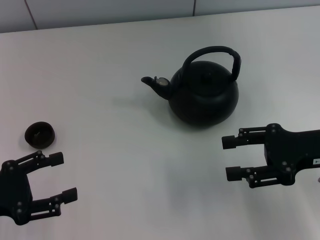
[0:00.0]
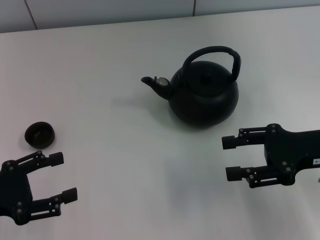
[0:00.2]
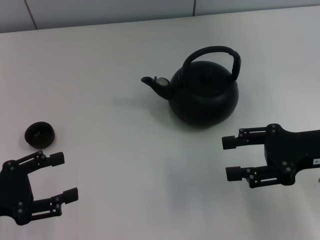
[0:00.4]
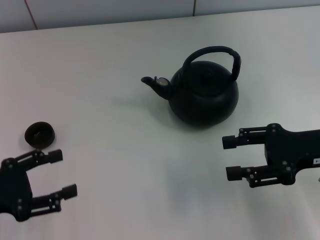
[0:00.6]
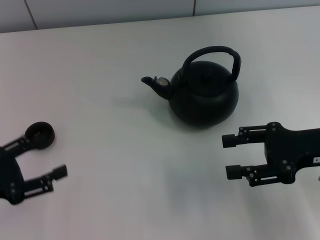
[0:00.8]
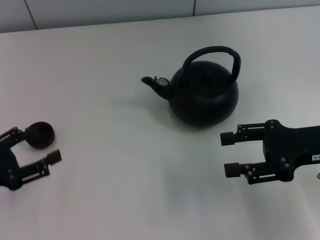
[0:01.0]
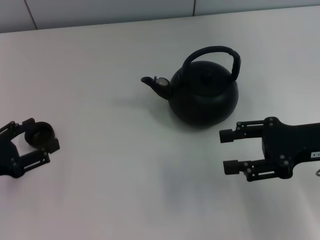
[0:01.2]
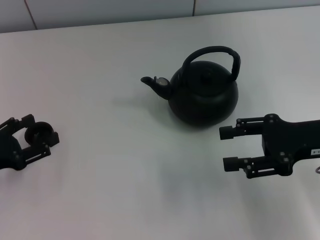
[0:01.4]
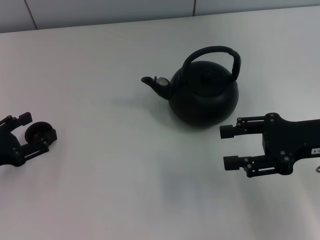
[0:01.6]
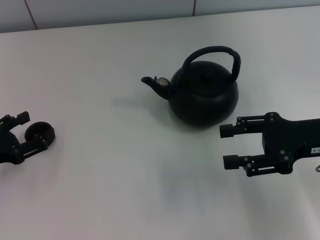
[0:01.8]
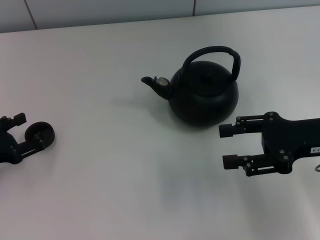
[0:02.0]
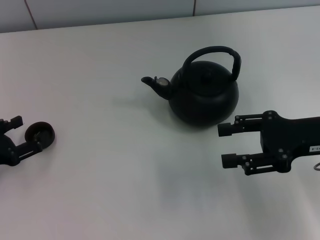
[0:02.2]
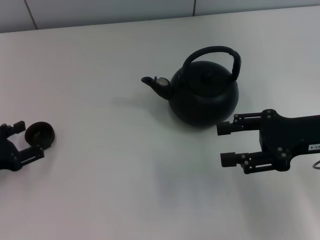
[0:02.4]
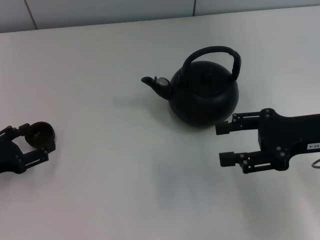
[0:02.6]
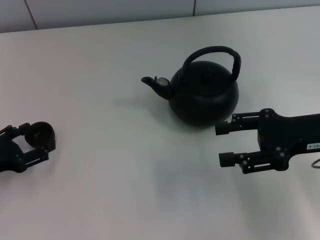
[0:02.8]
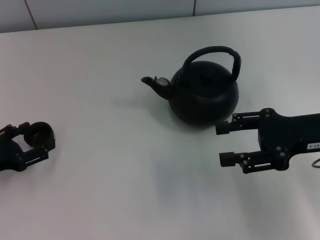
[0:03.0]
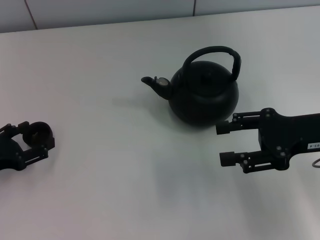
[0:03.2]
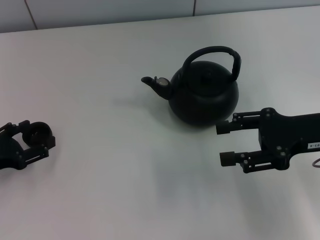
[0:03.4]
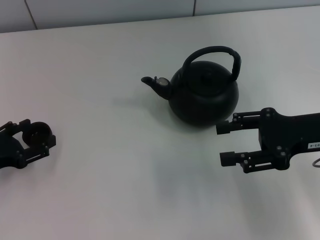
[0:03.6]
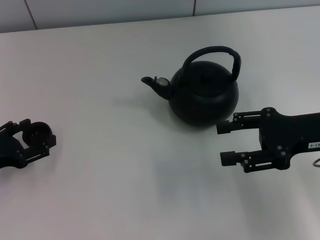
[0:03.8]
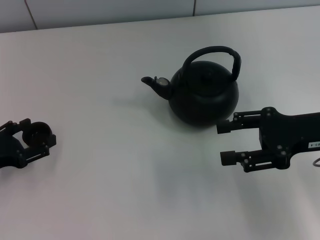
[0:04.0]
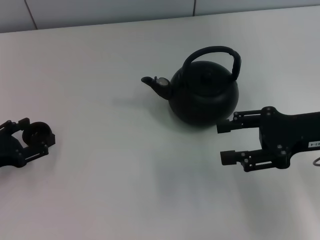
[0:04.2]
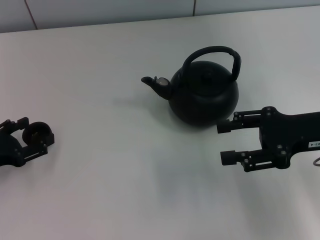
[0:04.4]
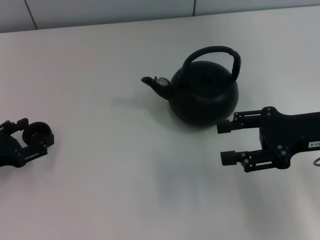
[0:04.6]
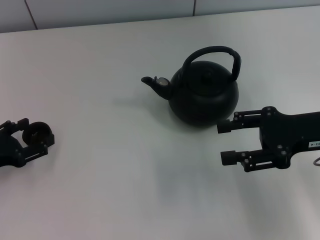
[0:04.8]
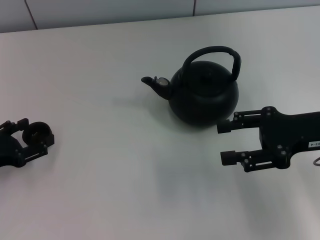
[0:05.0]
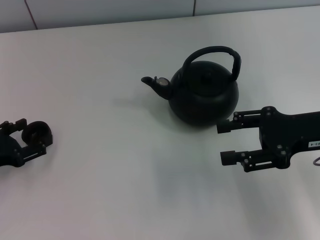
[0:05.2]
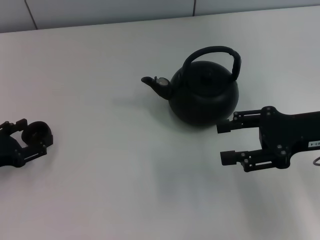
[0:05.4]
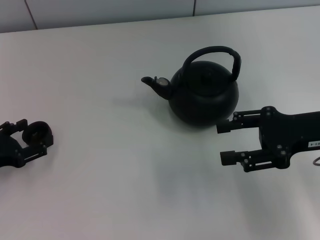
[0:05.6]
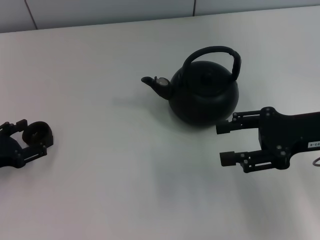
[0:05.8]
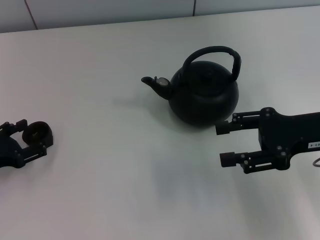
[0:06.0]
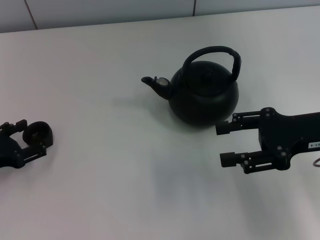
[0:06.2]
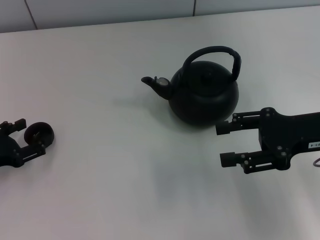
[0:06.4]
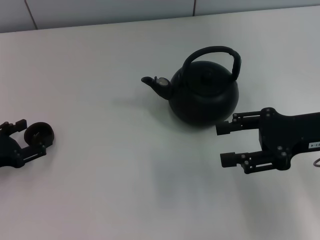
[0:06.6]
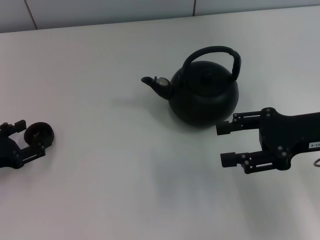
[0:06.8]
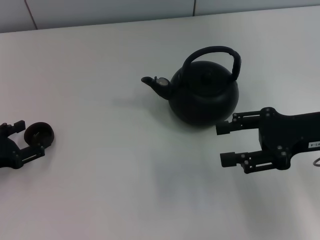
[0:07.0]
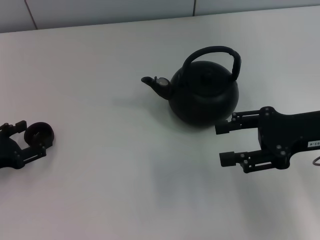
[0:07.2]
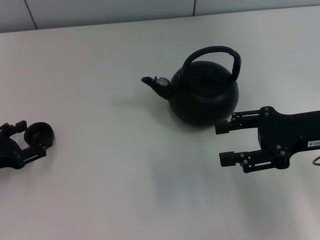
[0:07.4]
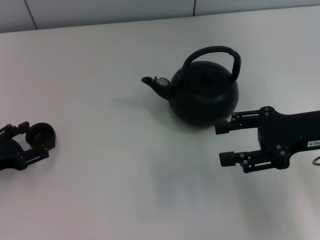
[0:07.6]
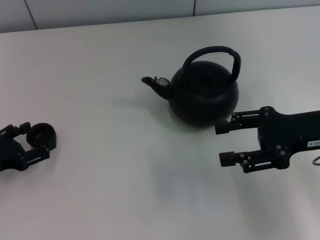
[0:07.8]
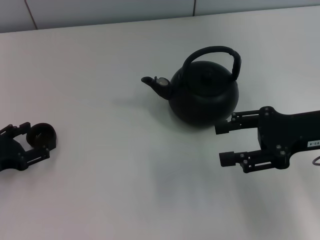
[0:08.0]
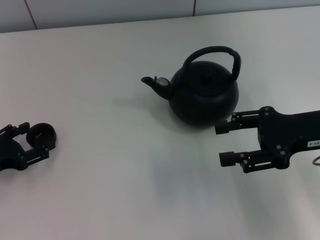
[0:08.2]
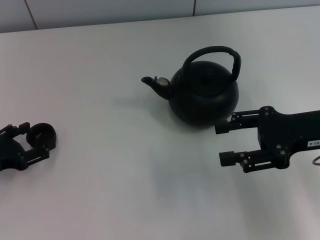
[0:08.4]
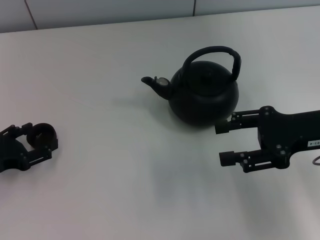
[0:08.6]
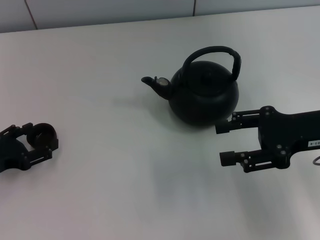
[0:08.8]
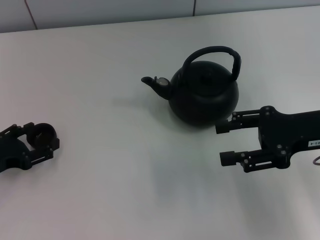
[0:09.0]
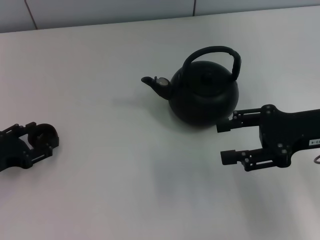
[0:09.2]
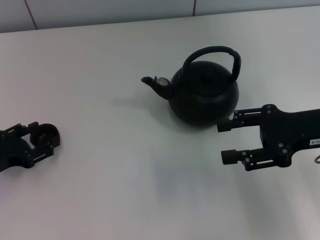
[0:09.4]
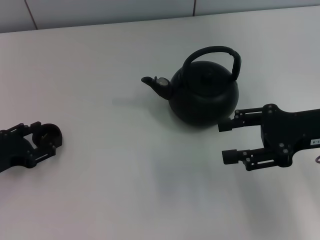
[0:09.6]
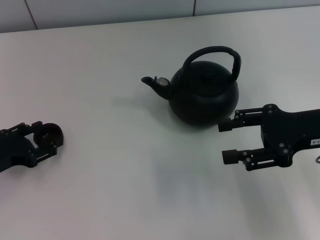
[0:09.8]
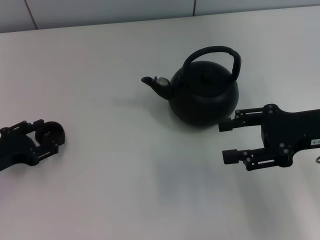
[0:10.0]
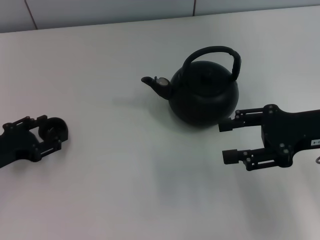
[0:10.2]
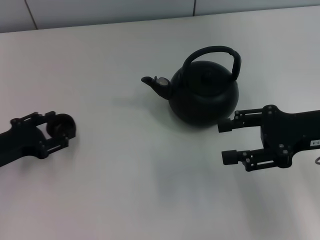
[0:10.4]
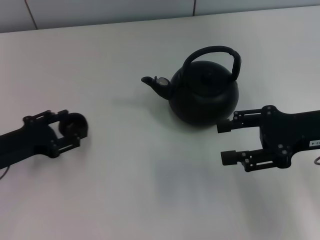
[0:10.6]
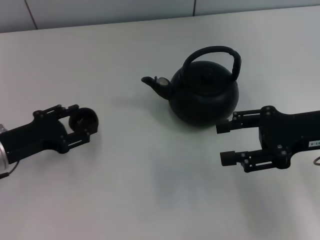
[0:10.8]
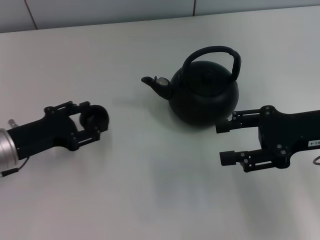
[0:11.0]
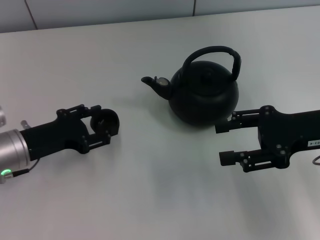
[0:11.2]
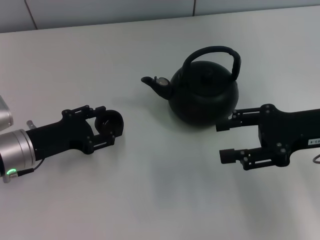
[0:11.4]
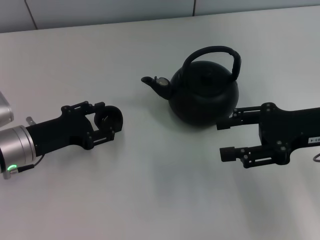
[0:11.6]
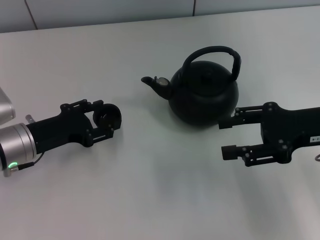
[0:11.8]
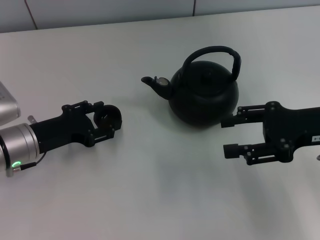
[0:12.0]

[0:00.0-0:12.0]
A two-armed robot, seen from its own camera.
Task of the whole recording: Grasp the handle of the teapot with one hand and pour tea into the teacup.
Step, 0:00.0 to 0:10.2: Pick up the teacup with the left gripper.
0:00.0 to 0:01.6: The left gripper moves some 5 cm.
0:01.6 to 0:03.0: The grippers stay close to where they were, moving slightly.
0:03.0 to 0:09.0: Neither gripper changes place.
0:09.0 to 0:10.4: The left gripper closes up.
0:10.4 to 0:12.0: The left gripper shifts some 5 cm to the right, and opens its fingers.

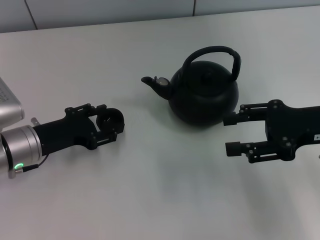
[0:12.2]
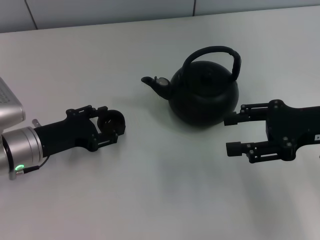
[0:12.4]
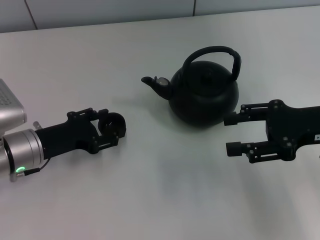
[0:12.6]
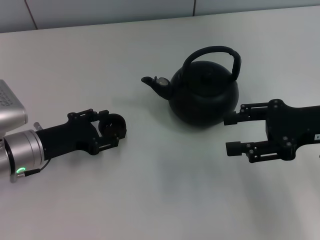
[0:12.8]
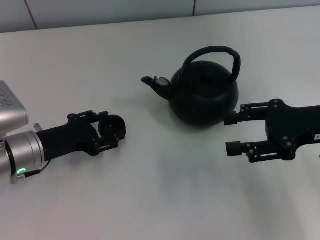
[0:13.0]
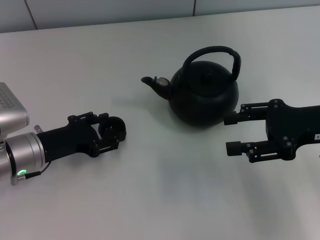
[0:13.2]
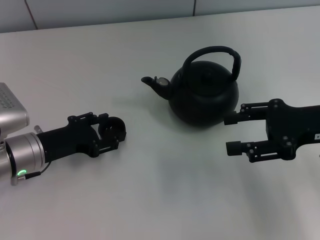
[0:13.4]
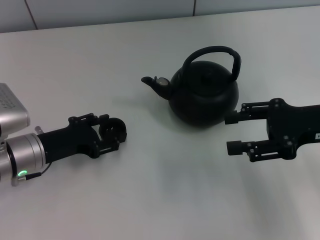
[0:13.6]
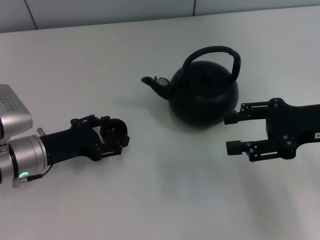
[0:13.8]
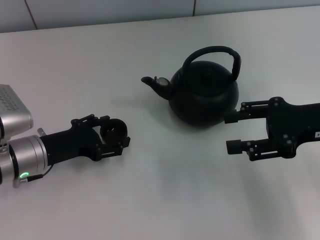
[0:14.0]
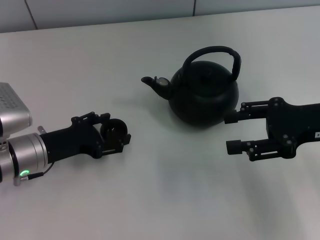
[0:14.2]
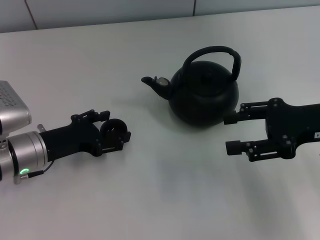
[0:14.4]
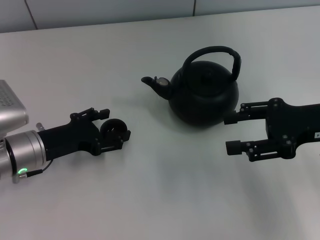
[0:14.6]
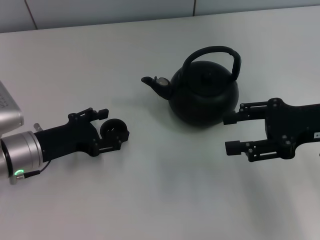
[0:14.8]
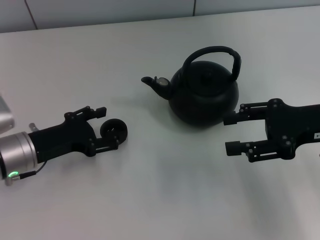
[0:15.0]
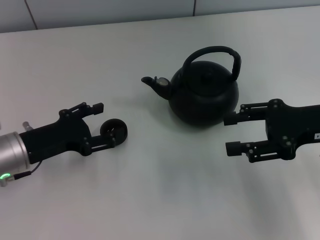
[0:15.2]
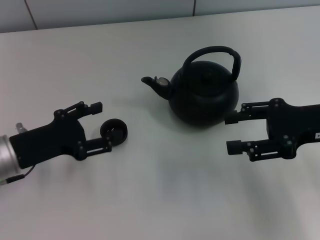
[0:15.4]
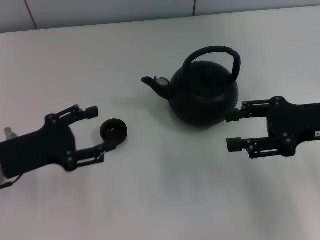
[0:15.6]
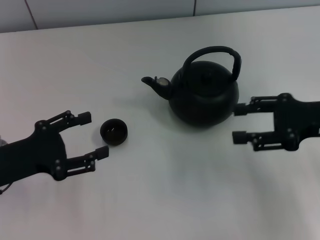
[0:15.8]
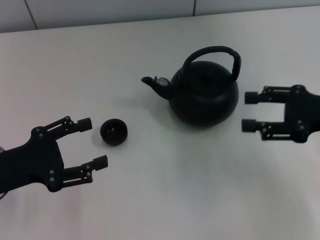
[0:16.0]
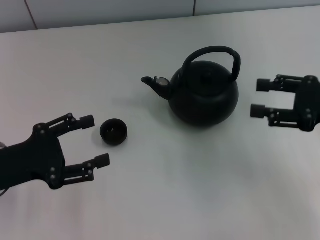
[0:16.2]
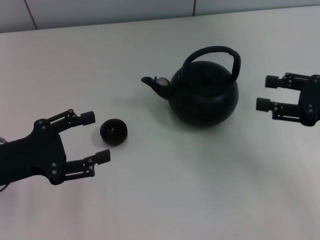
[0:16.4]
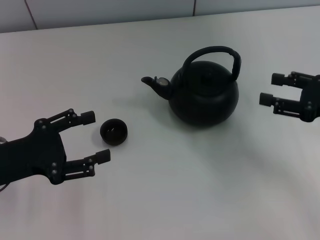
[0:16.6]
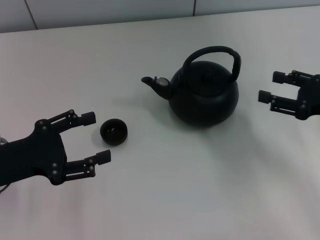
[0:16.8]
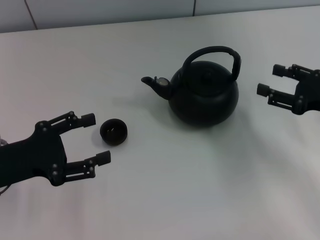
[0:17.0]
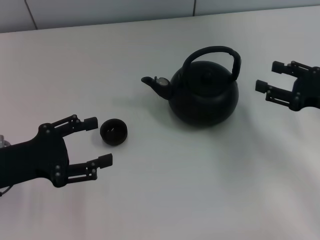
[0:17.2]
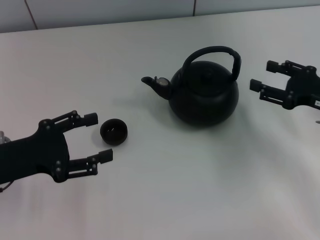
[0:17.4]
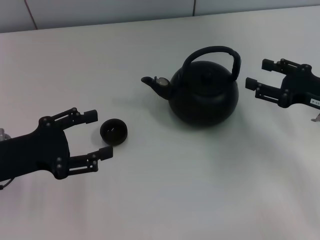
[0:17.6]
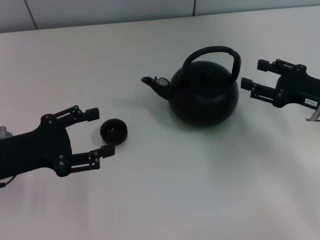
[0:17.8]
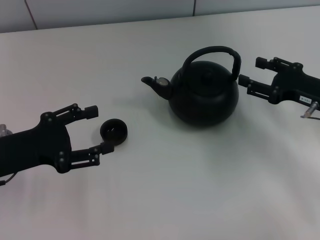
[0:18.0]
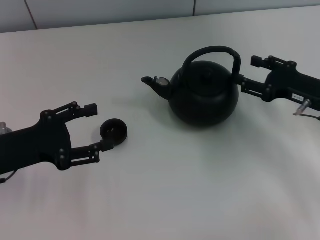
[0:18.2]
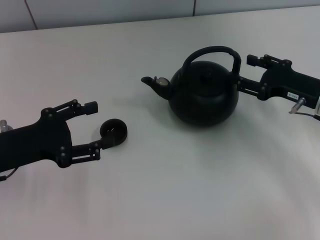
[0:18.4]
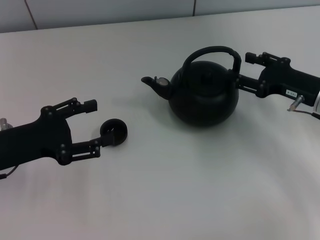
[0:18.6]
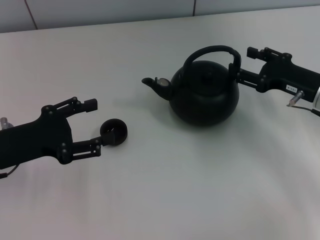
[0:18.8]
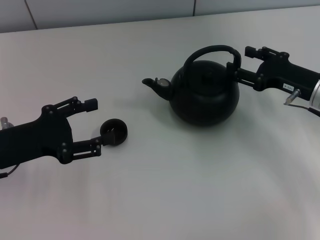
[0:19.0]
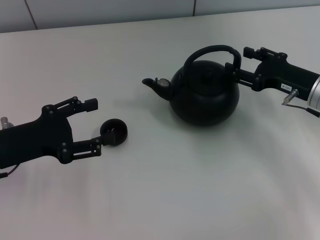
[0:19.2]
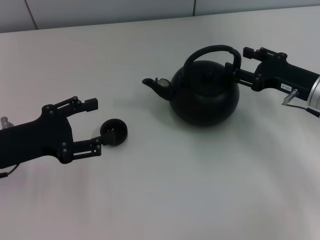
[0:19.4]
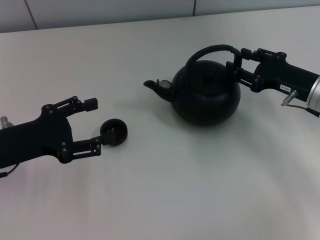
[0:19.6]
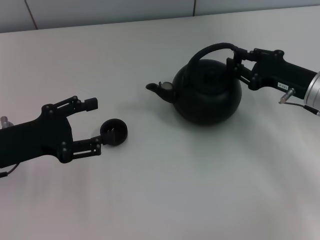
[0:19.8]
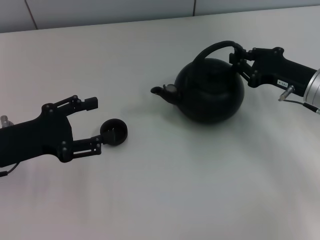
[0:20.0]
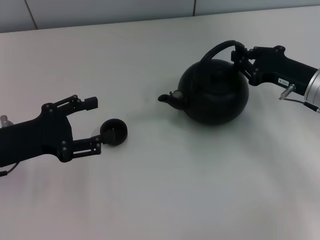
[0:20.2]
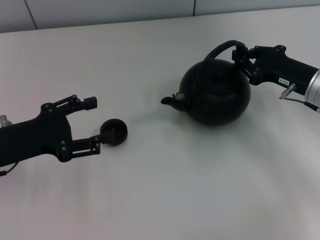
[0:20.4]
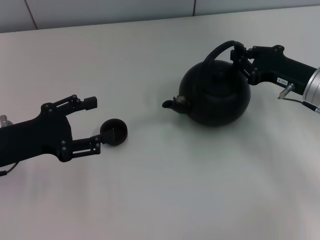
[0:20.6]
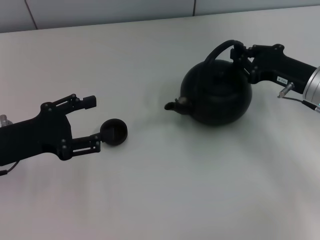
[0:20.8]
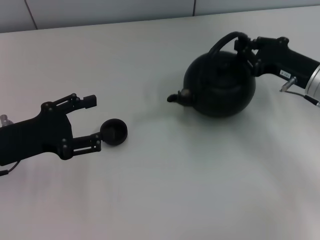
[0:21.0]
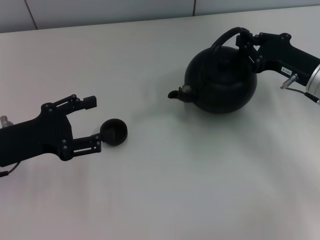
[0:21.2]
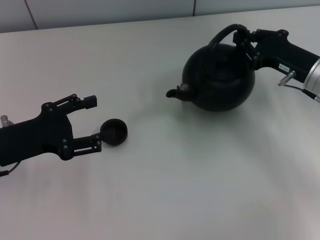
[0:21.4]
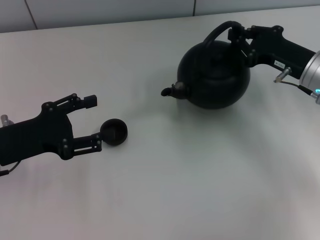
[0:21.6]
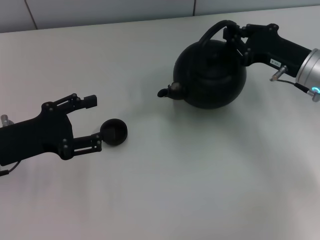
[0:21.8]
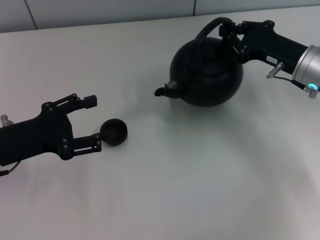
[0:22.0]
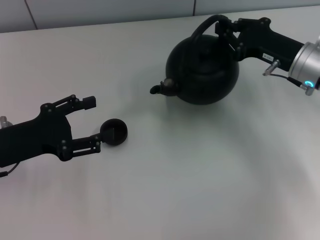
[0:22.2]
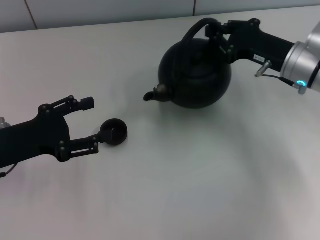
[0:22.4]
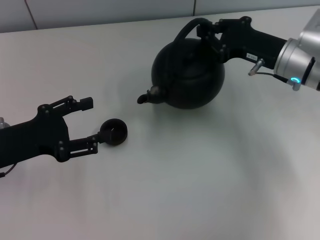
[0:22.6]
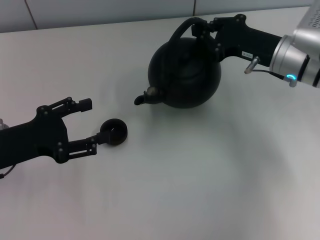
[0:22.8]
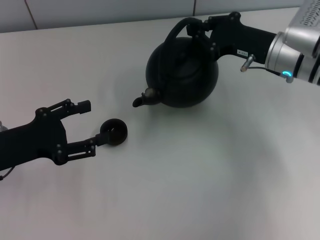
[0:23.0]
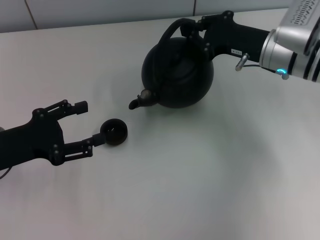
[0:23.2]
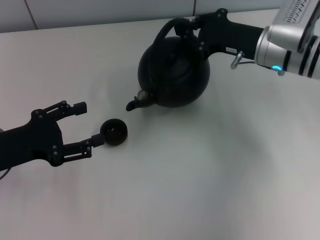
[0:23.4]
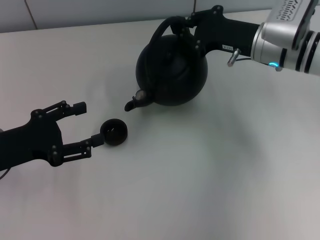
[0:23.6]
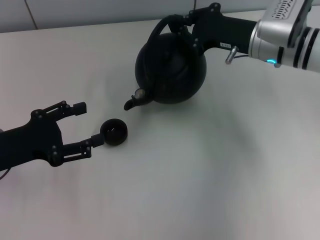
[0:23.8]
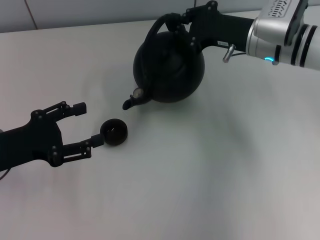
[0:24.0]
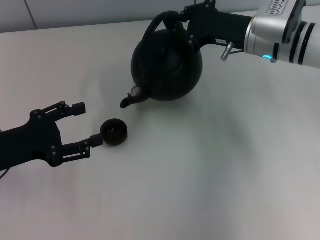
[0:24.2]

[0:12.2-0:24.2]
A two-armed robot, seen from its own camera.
Task of the whole recording: Grasp the handle of the teapot with one hand and pour tea into the teacup.
Step, 0:12.2 to 0:16.2: Place the teacup in the center of view with the left gripper.
Step, 0:16.6 to 0:22.6: Pick up the teapot with the right gripper.
0:12.2 to 0:13.8: The left gripper opens.
0:13.8 to 0:15.2: The grippers move only a little.
0:15.2 to 0:16.6: The left gripper ends up about 5 cm from where it was; the right gripper shifts about 5 cm to the right.
0:16.6 to 0:18.2: The right gripper ends up approximately 5 cm from where it was.
0:18.2 to 0:19.8: The right gripper closes up.
0:19.8 to 0:21.2: The right gripper closes.
0:21.2 to 0:22.6: The right gripper ends up roughly 5 cm from where it was.
0:22.6 to 0:24.2: The right gripper ends up about 5 cm from where it was.
